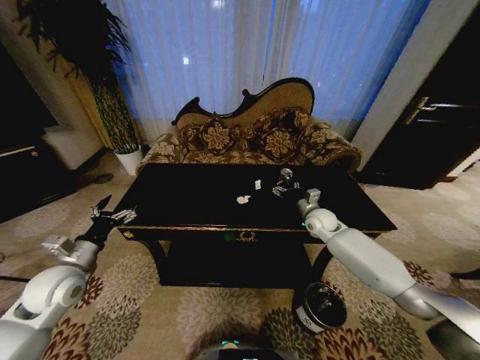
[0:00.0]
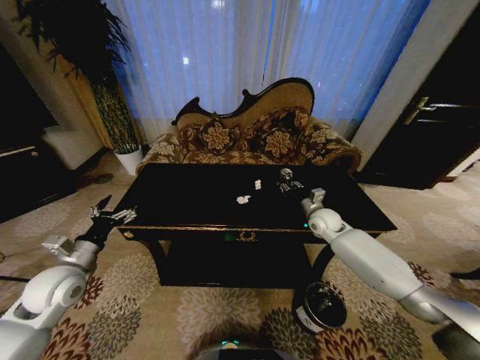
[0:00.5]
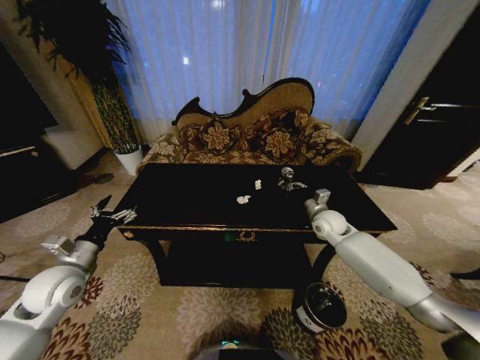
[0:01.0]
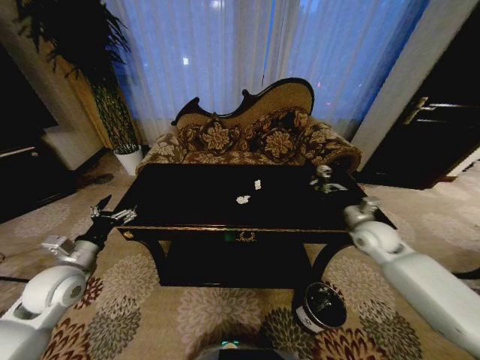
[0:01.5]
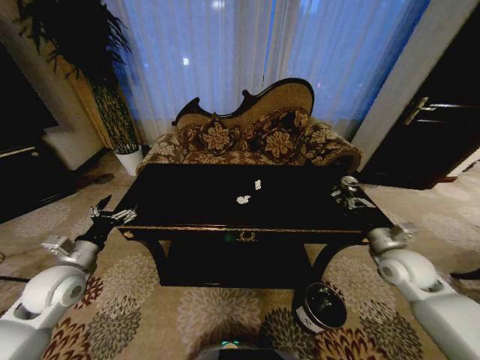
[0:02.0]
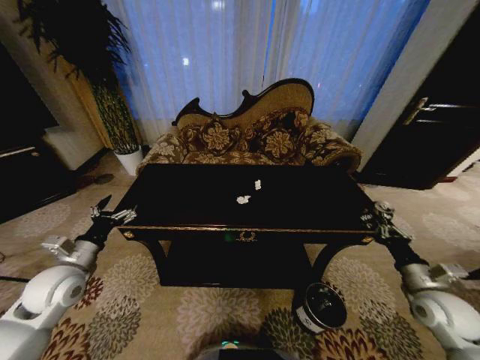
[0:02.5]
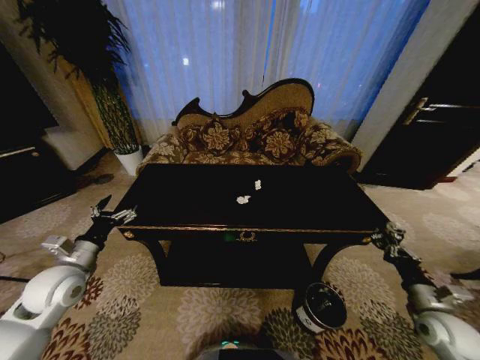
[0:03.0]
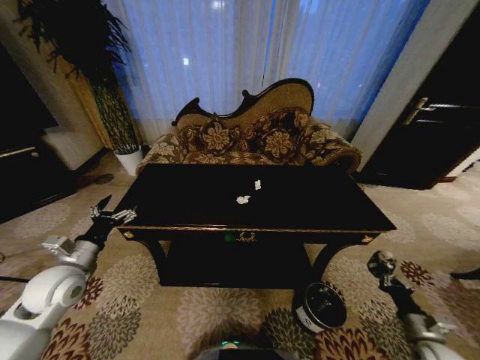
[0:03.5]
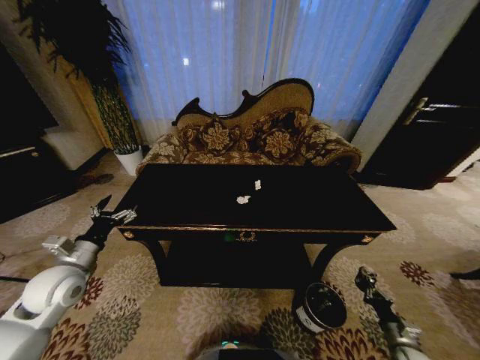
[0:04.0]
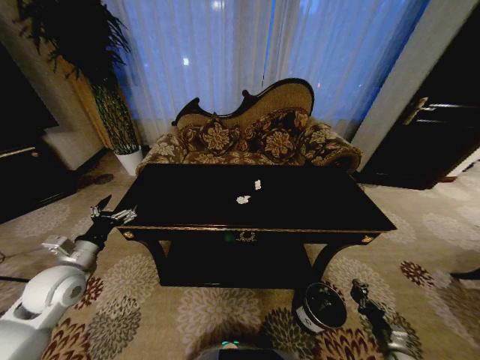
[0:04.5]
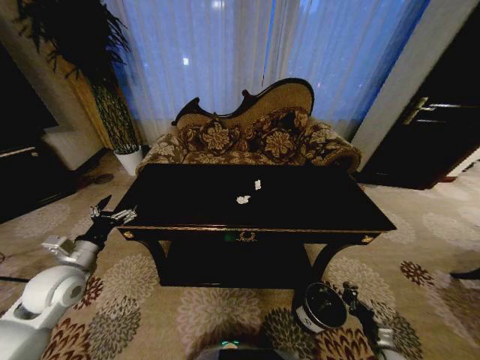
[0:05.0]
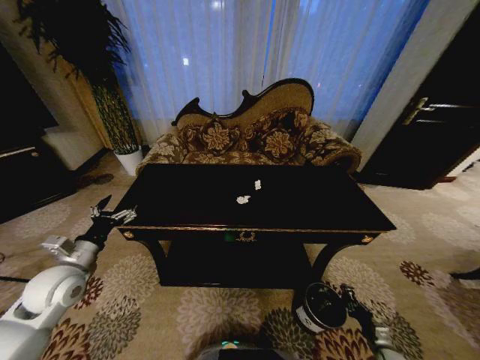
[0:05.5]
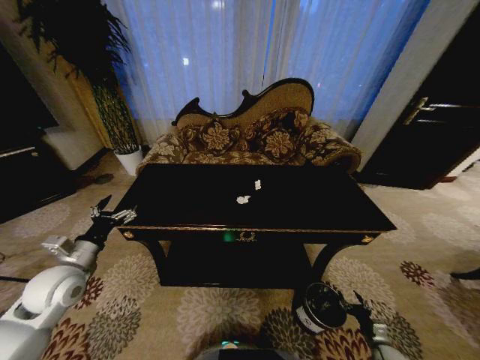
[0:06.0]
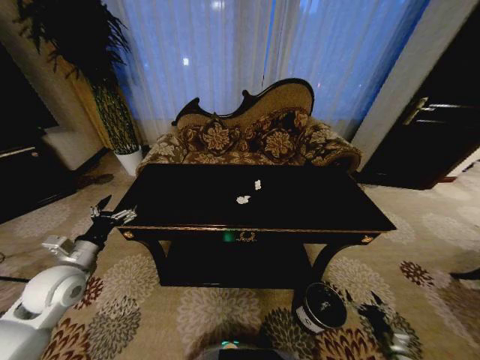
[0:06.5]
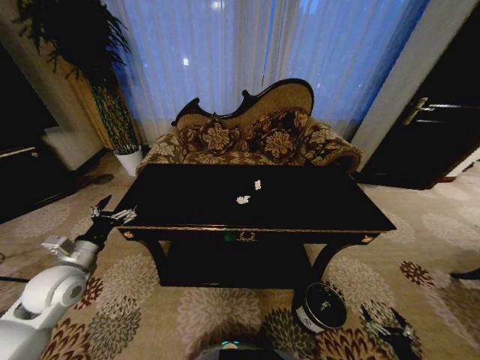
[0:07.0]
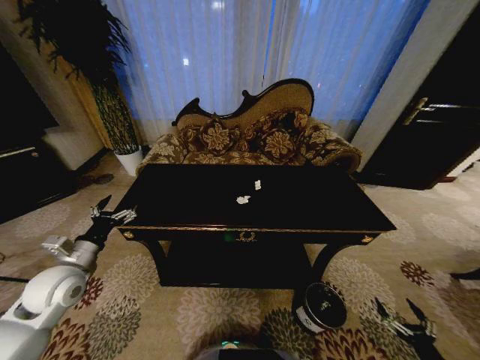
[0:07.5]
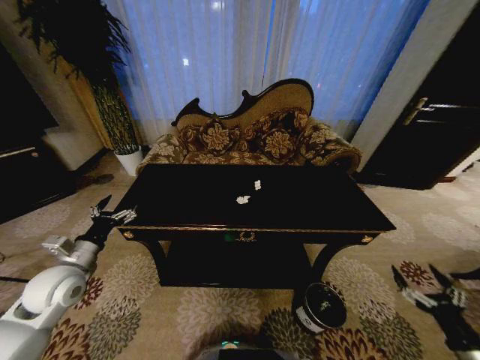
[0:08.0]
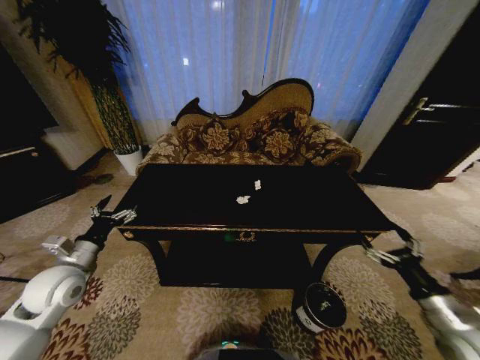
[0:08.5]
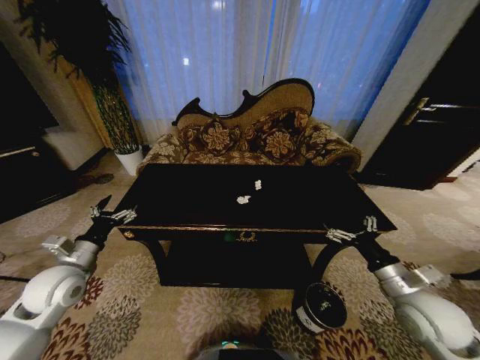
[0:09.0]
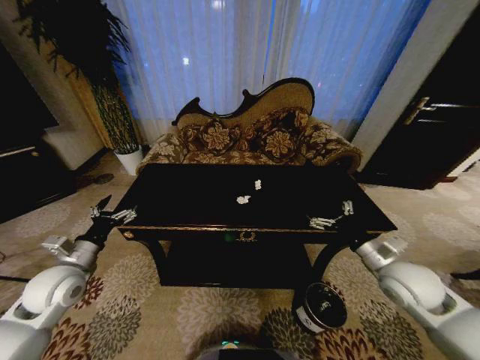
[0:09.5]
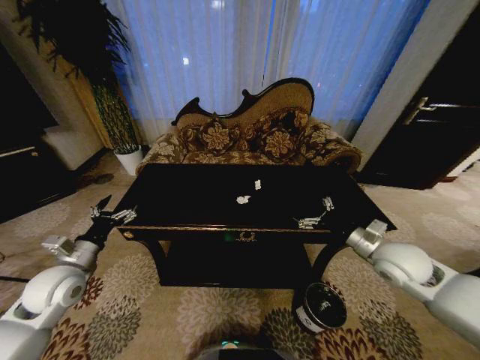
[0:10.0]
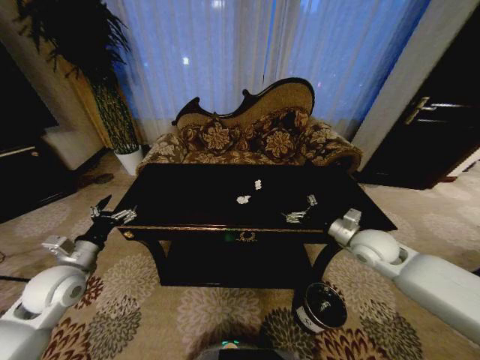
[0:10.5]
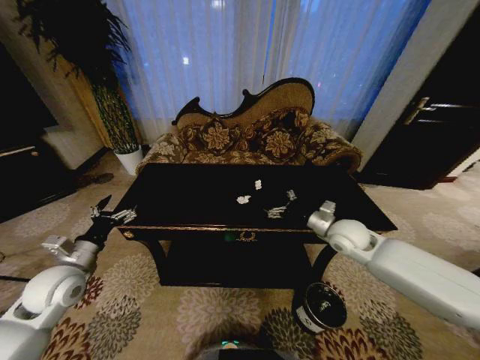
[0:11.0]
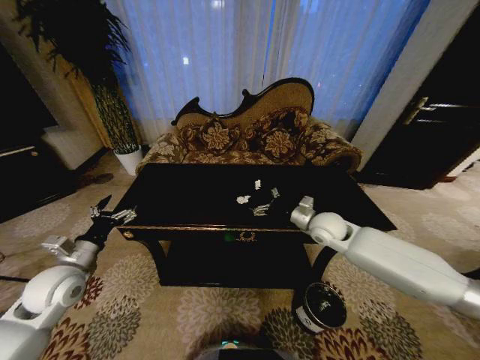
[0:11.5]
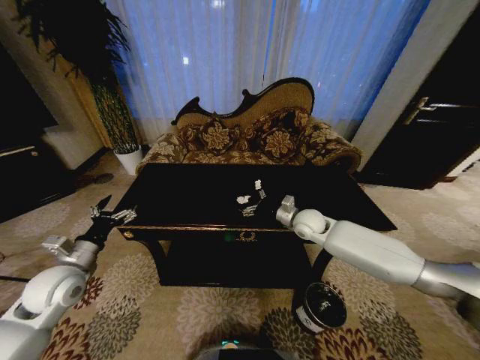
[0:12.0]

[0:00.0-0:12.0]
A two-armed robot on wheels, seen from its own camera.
Task of the whole recording: Move to the front of the table and place the trash on the table into the trash bin.
0:00.0 to 0:02.0: The right gripper moves backward and to the right, about 20 cm, and closes up.
0:02.0 to 0:04.0: The right gripper moves downward and backward, approximately 30 cm.
0:04.0 to 0:06.0: The right gripper goes roughly 10 cm downward, and opens its fingers.
0:06.0 to 0:08.0: The right gripper moves upward, some 25 cm.
0:08.0 to 0:10.0: The right gripper moves forward, upward and to the left, roughly 30 cm.
0:10.0 to 0:12.0: The right gripper goes approximately 20 cm forward and to the left.

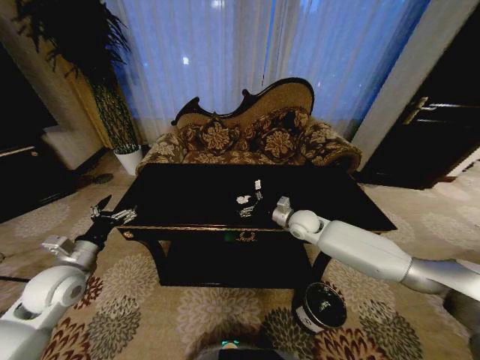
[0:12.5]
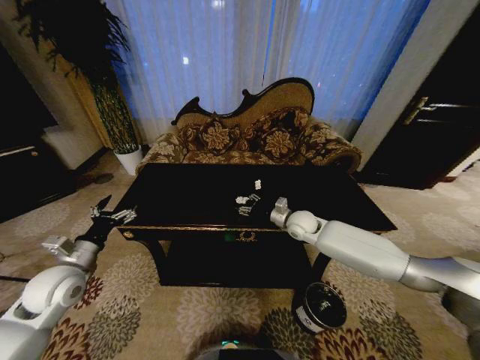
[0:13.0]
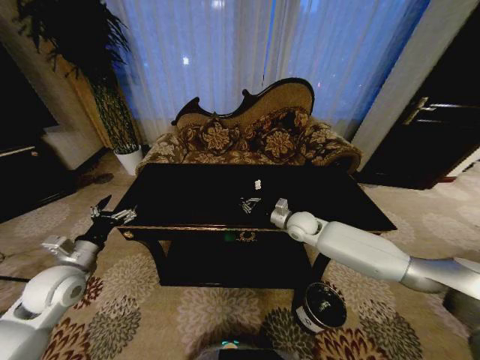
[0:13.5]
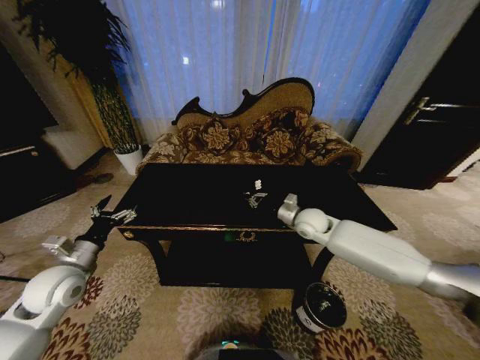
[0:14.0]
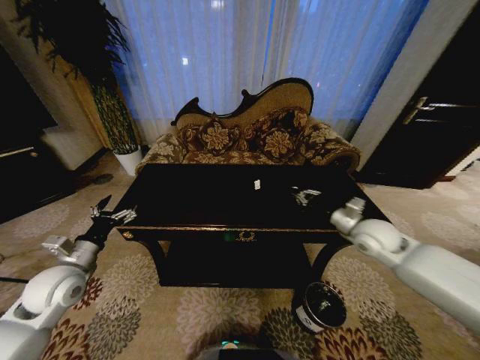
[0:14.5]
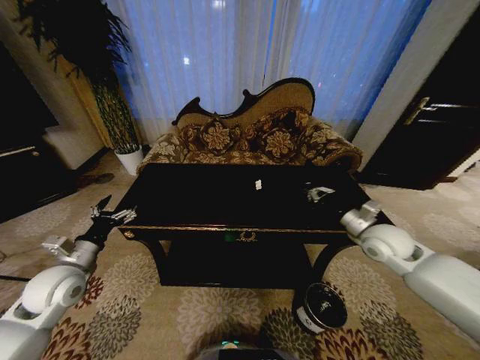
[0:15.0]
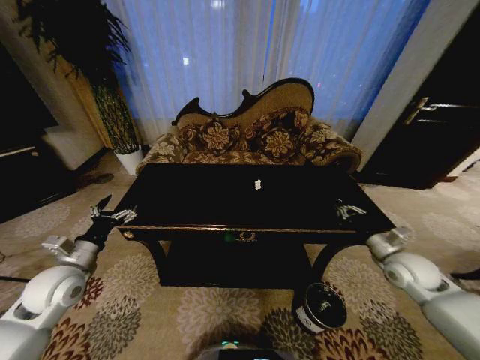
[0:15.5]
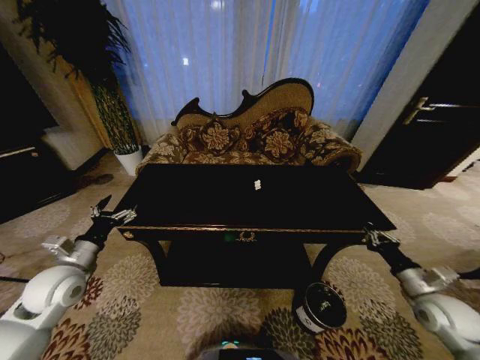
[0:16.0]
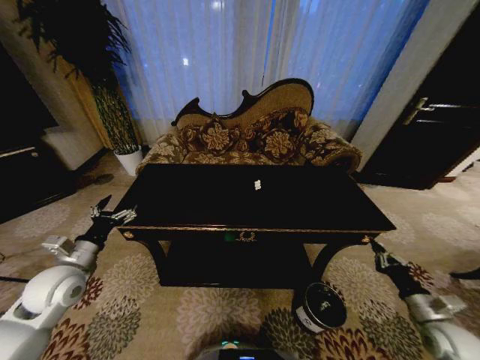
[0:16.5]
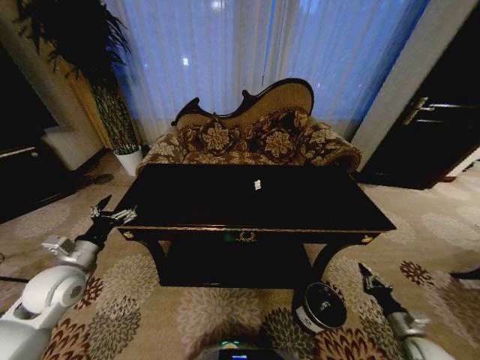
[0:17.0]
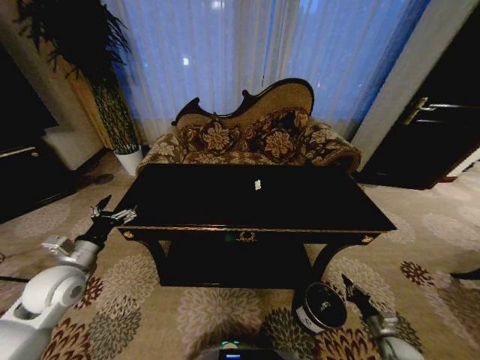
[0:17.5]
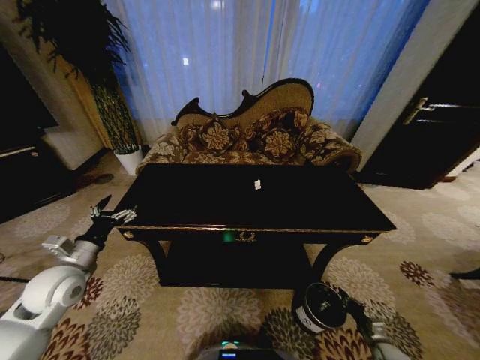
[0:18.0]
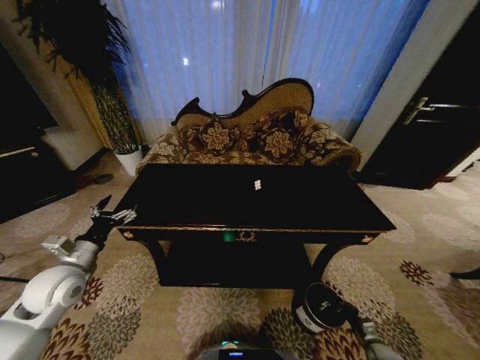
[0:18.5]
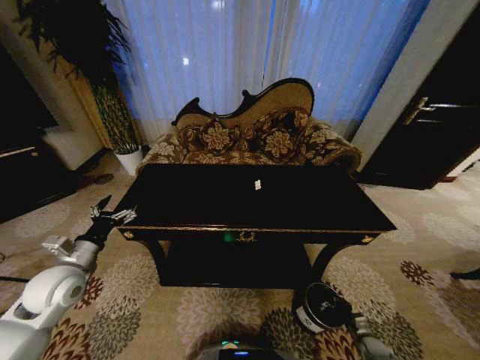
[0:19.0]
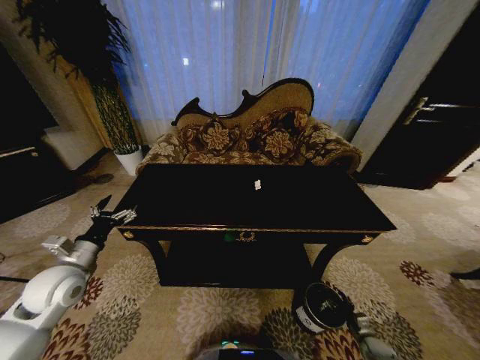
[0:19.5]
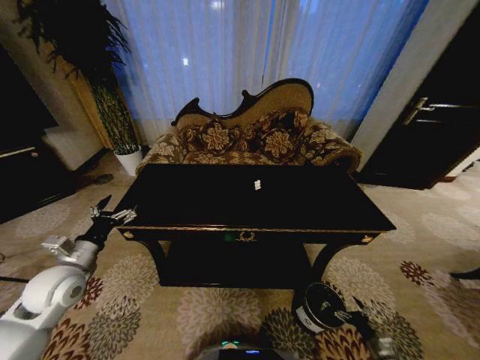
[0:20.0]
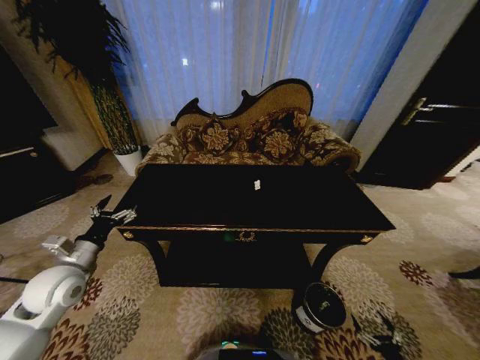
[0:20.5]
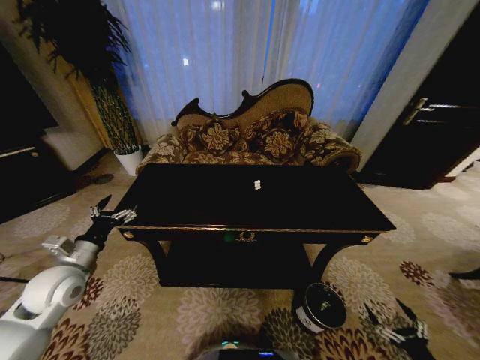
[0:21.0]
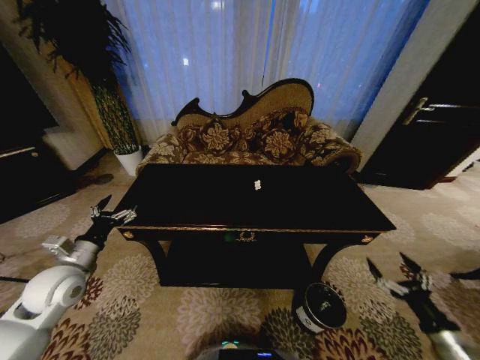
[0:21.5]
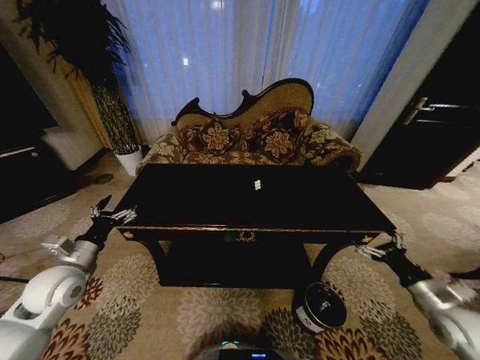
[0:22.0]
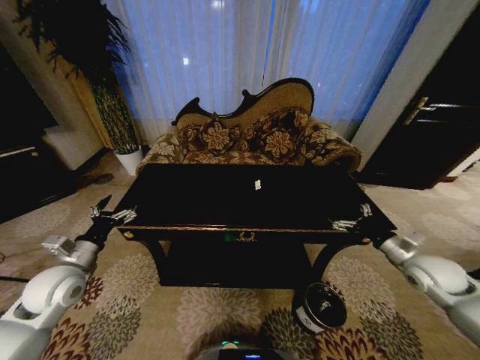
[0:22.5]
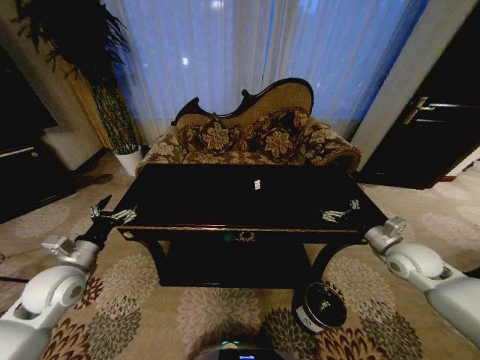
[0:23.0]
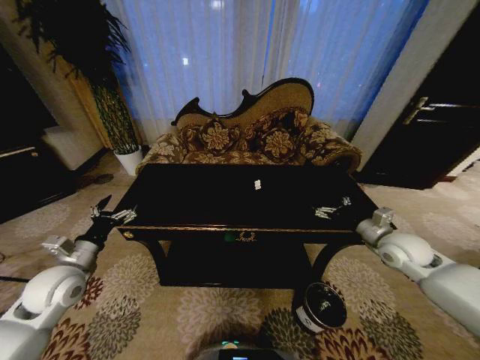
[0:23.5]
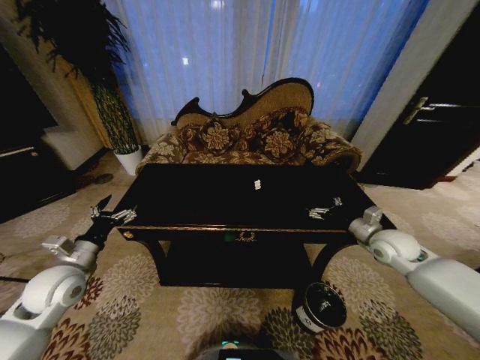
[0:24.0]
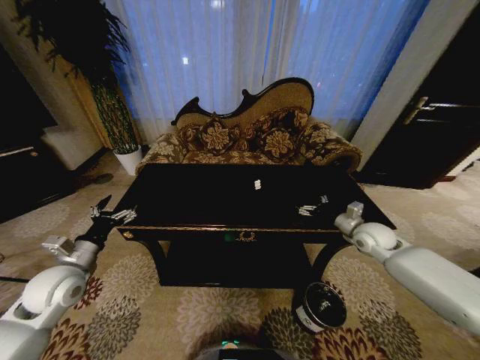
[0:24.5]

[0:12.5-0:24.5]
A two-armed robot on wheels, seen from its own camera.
Task of the whole recording: Move to the front of the table and place the trash on the table into the trash bin.
0:12.5 to 0:14.5: The right gripper travels to the right, backward and upward by some 15 cm, and closes its fingers.
0:14.5 to 0:16.5: The right gripper moves backward, downward and to the right, roughly 30 cm.
0:16.5 to 0:18.5: The right gripper goes roughly 25 cm downward.
0:18.5 to 0:20.5: The right gripper goes about 15 cm backward and upward, and opens up.
0:20.5 to 0:22.5: The right gripper moves upward and forward, roughly 40 cm.
0:22.5 to 0:24.5: The right gripper goes some 15 cm forward and to the left.

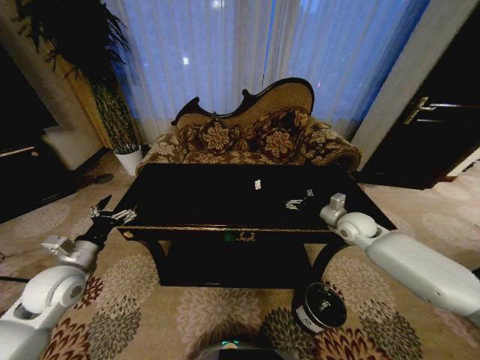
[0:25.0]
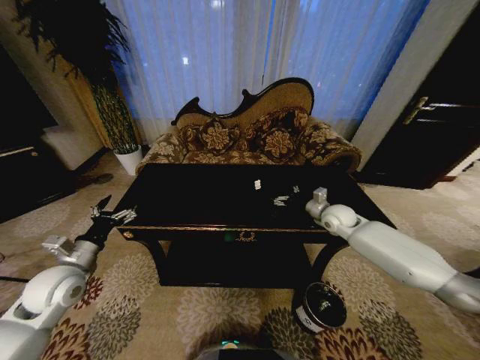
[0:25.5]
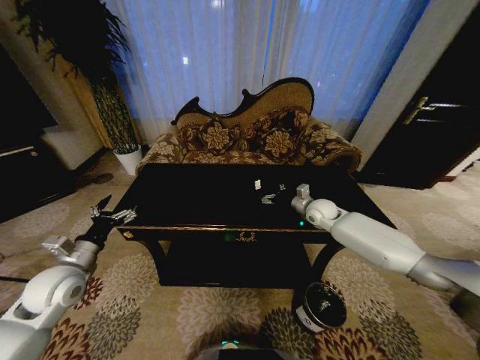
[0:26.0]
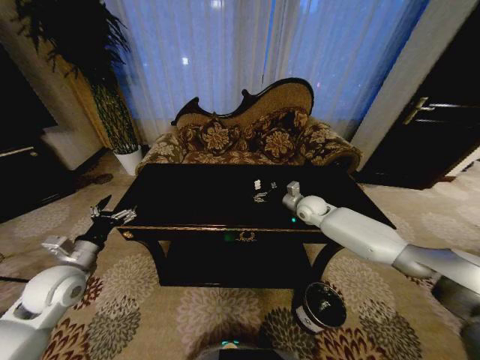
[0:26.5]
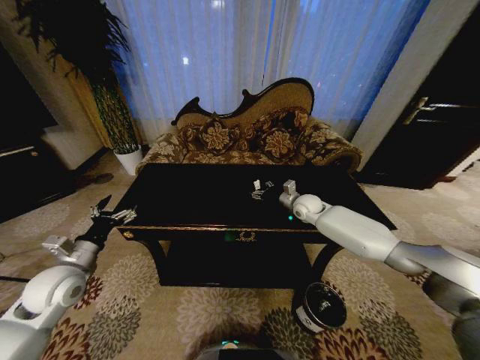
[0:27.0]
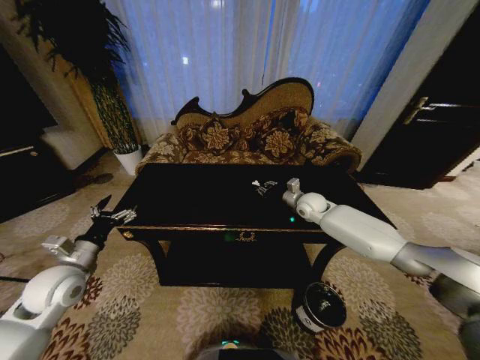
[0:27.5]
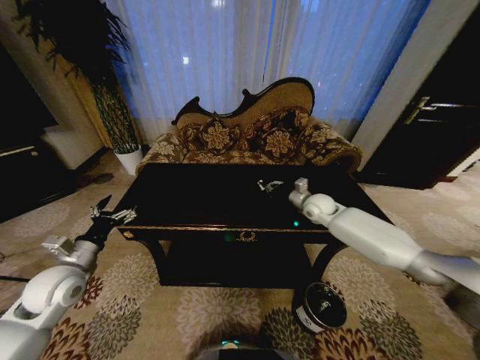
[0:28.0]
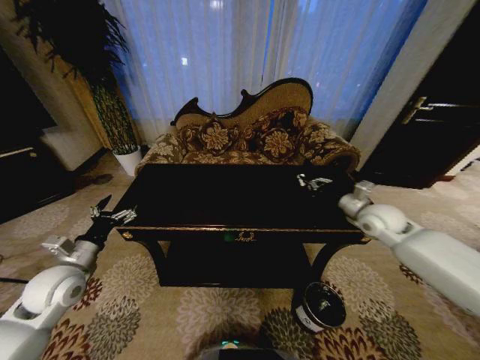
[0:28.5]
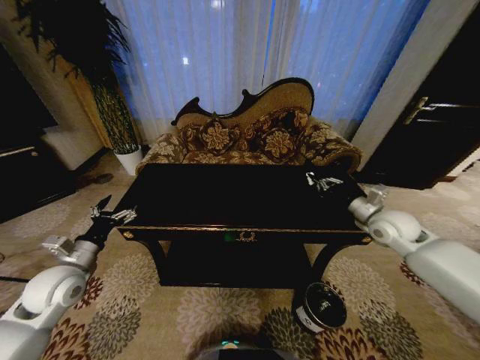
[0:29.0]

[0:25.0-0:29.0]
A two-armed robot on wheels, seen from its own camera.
Task of the whole recording: Move to the front of the table and place the trash on the table into the trash bin.
0:25.0 to 0:27.0: The right gripper is displaced to the left and forward by about 15 cm.
0:27.0 to 0:29.0: The right gripper moves backward, to the right and upward, some 25 cm, and closes its fingers.
